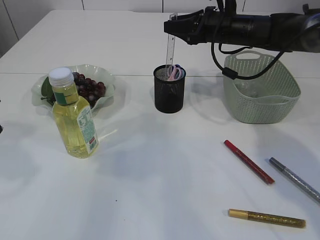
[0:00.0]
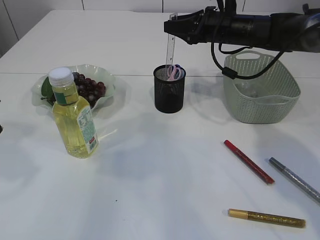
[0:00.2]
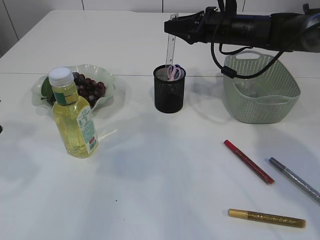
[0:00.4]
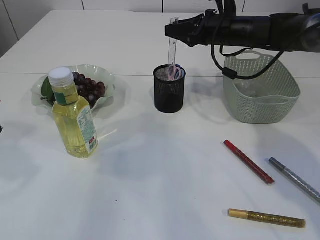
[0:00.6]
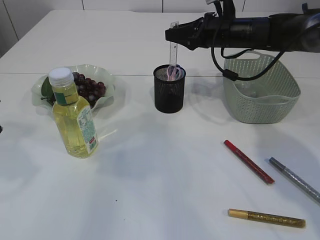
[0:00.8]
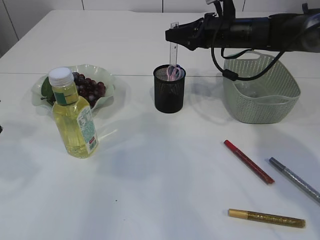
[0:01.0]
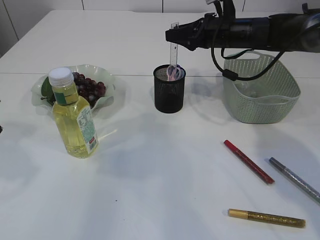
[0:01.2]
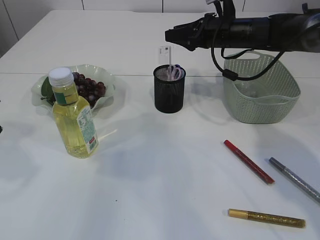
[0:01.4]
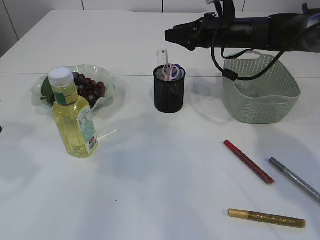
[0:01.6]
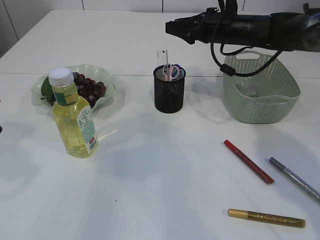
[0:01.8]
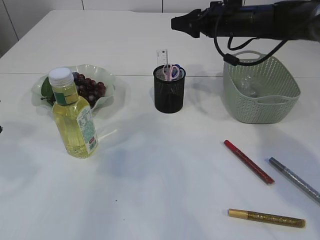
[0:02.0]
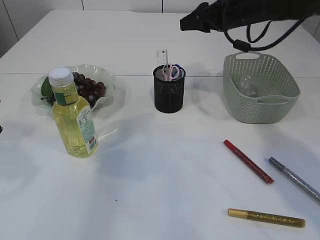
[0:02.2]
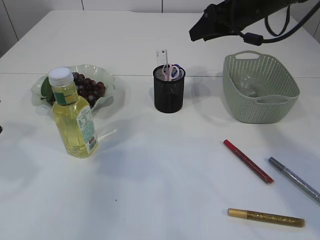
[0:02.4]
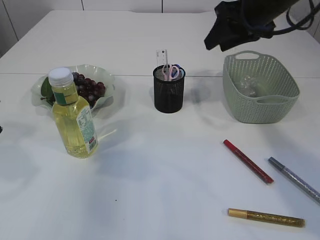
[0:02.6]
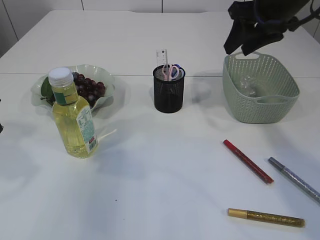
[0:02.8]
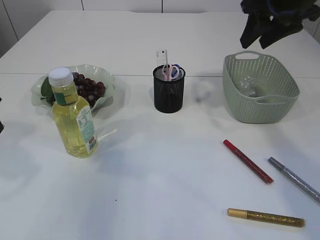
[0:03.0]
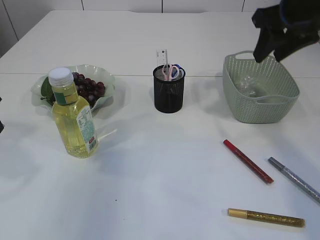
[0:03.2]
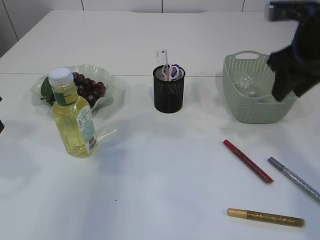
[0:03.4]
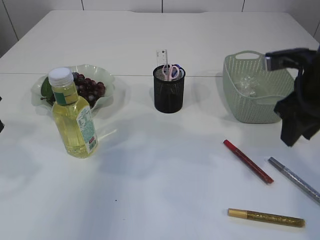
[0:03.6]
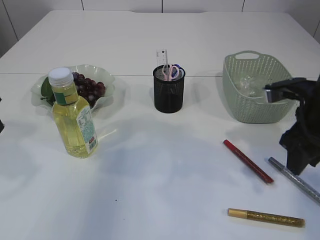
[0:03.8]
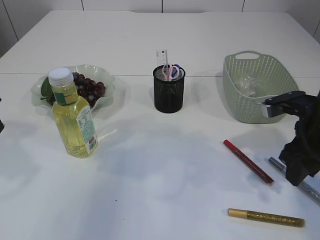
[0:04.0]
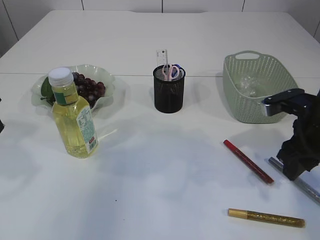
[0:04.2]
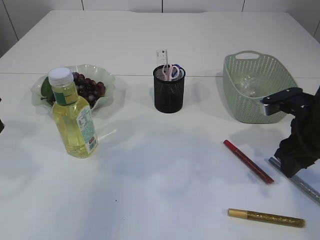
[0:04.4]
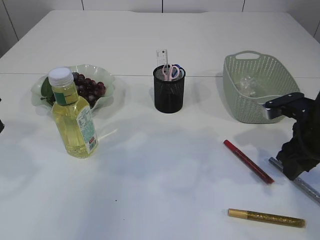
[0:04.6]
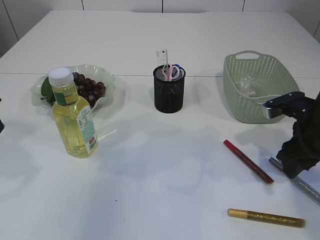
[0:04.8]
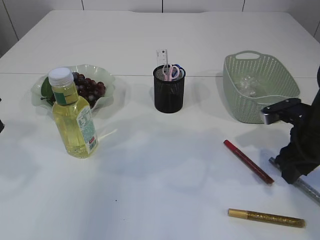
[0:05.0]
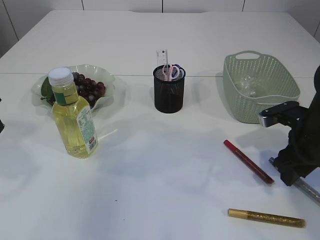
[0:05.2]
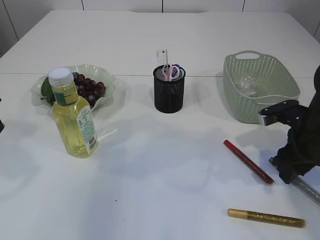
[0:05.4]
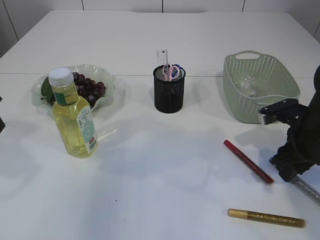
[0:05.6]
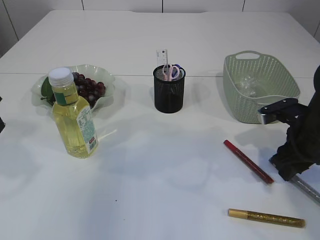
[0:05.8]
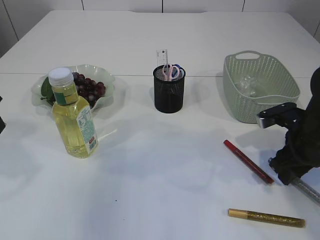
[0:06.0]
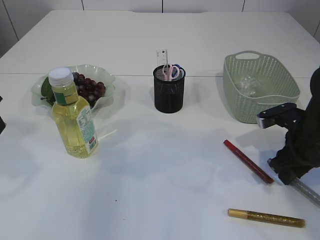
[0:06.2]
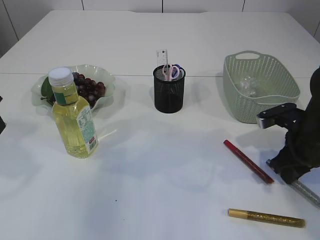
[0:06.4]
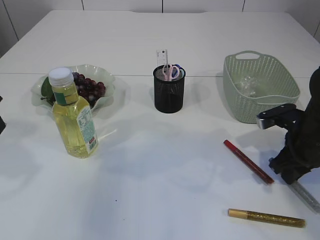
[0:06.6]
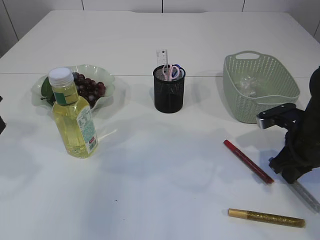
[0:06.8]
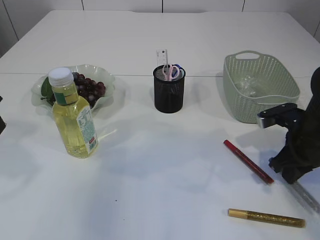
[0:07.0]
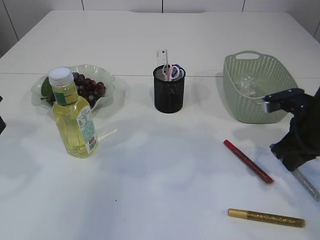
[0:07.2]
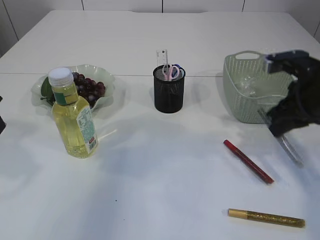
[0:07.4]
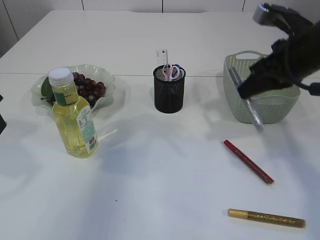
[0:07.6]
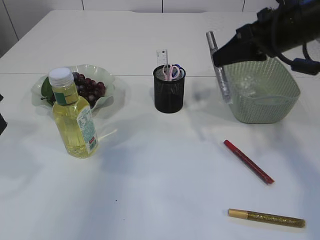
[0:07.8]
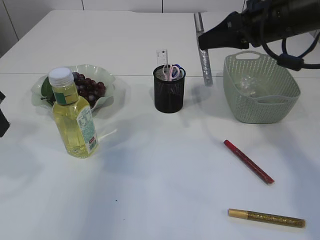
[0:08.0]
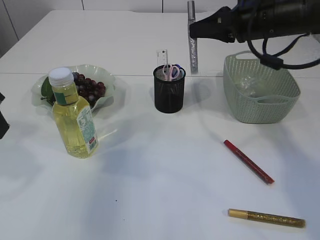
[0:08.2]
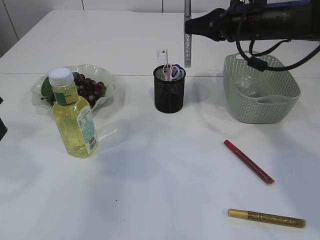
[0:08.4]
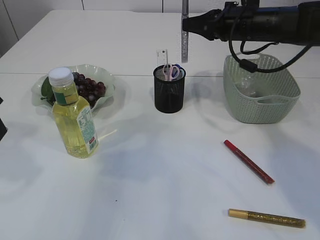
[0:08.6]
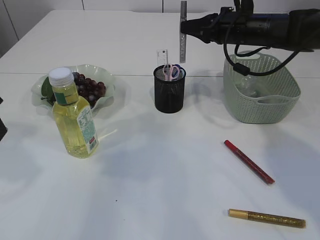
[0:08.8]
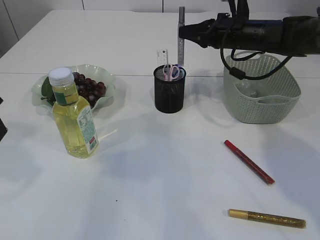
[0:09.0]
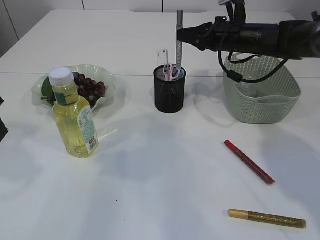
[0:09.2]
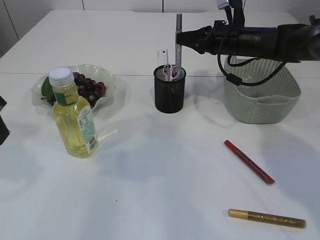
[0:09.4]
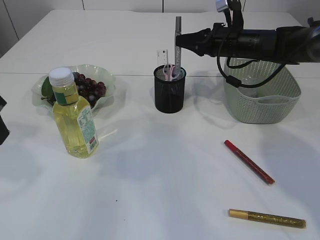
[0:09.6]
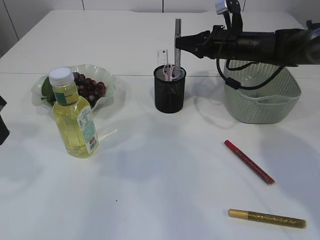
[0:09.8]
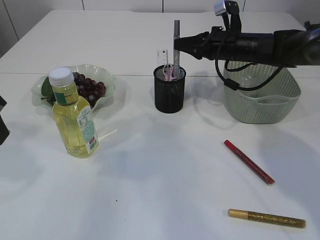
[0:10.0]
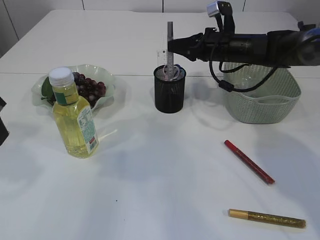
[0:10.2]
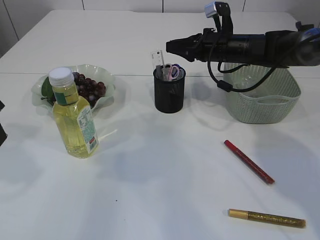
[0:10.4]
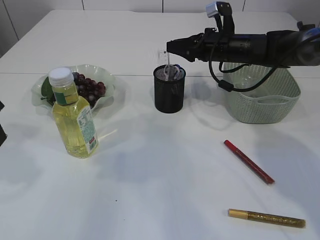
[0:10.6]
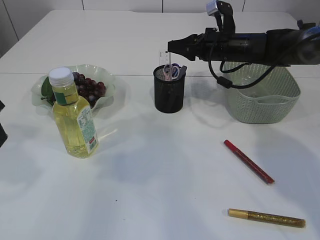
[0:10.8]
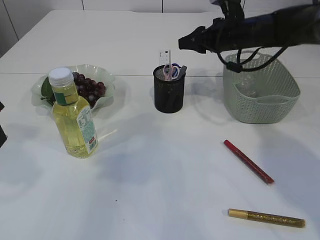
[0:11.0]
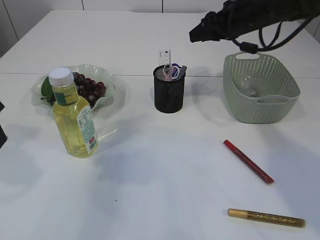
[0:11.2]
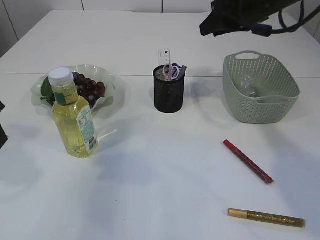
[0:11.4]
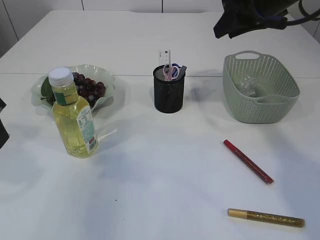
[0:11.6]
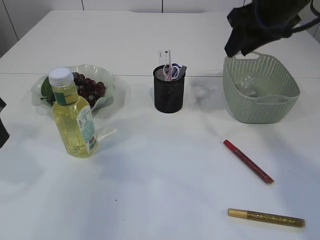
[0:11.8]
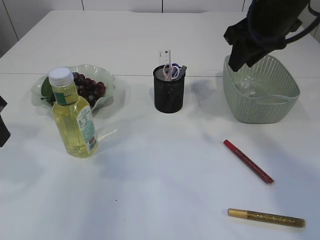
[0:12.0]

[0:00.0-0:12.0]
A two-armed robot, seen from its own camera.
Step, 0:00.0 to 0:02.0: Place the ruler into the pen holder.
Step, 0:02.2 to 0:07.2: pick up the silver glue.
Step, 0:07.4 to 0:11.0: place the silver glue into the pen holder.
0:00.0 to 0:01.6: There are only small adjustments of the grippers.
0:01.6 to 0:03.0: The right gripper moves upward, backward and to the right, some 15 cm.
0:03.0 to 0:04.4: The right gripper shifts some 20 cm downward and backward.
0:04.4 to 0:06.0: The grippers make only small movements.
0:06.0 to 0:07.6: The right gripper heads upward, covering about 15 cm, and closes up.
0:07.6 to 0:09.0: The right gripper is displaced forward by about 15 cm.
0:09.0 to 0:10.4: The grippers make only small movements.
0:10.4 to 0:12.0: The right gripper heads upward and backward, covering roughly 15 cm.

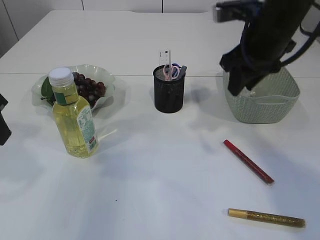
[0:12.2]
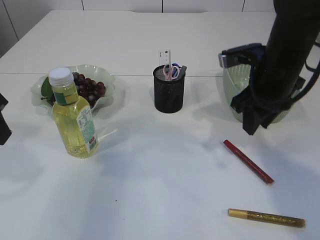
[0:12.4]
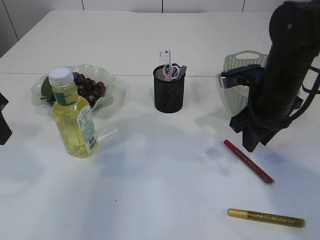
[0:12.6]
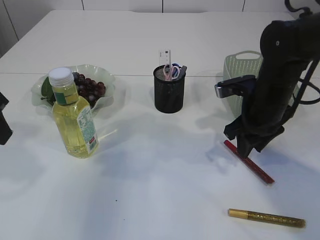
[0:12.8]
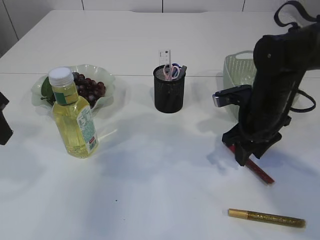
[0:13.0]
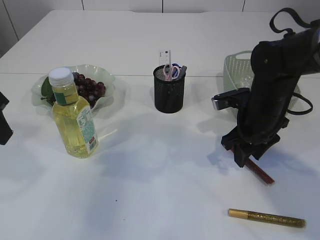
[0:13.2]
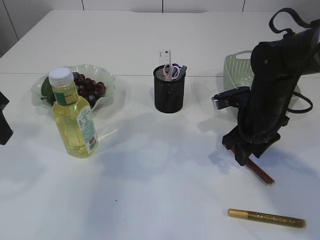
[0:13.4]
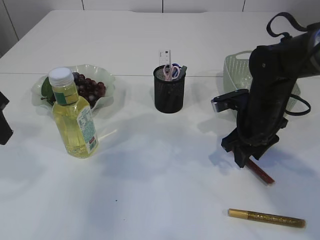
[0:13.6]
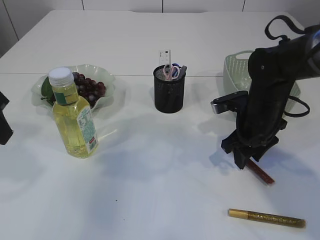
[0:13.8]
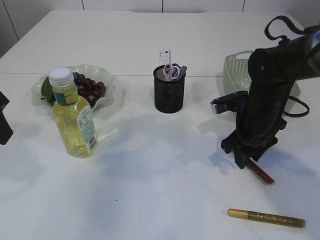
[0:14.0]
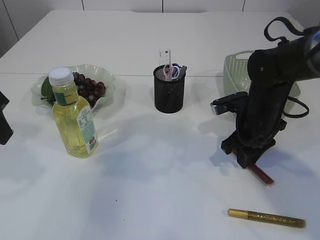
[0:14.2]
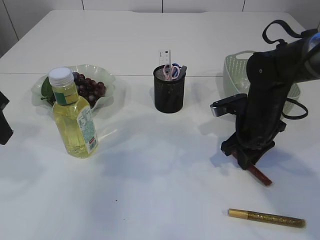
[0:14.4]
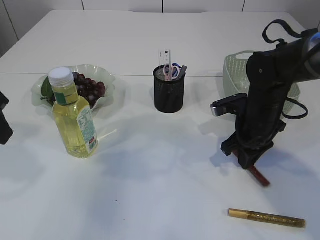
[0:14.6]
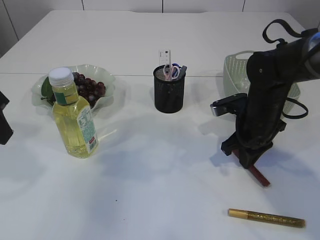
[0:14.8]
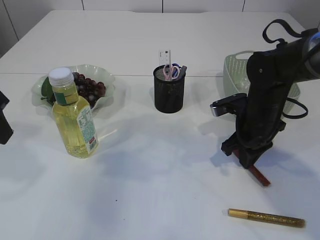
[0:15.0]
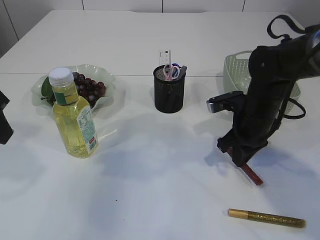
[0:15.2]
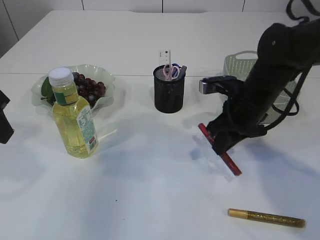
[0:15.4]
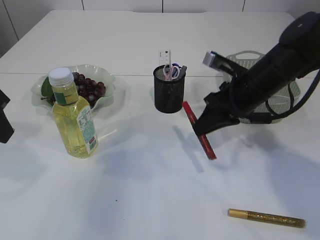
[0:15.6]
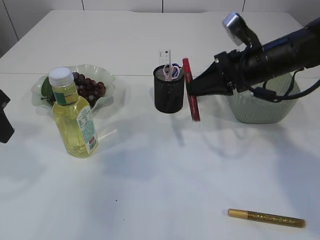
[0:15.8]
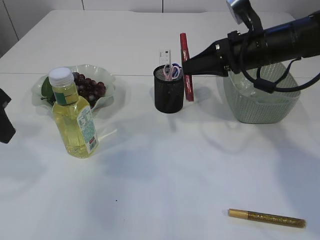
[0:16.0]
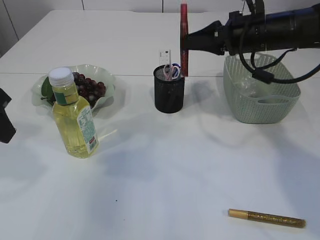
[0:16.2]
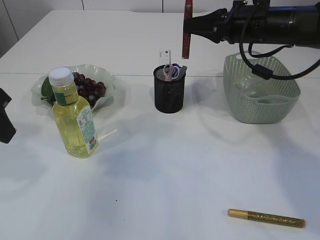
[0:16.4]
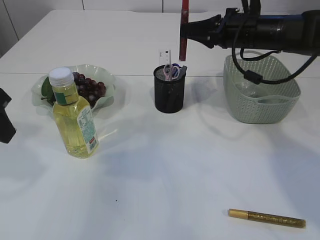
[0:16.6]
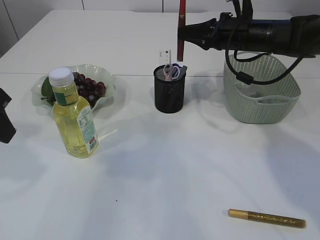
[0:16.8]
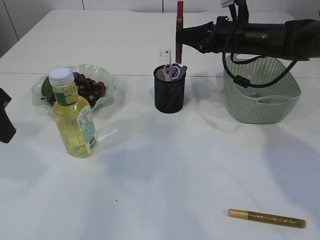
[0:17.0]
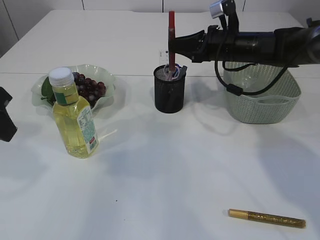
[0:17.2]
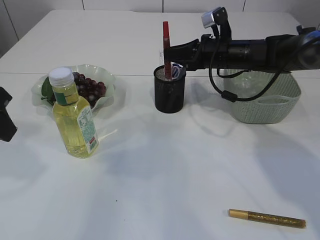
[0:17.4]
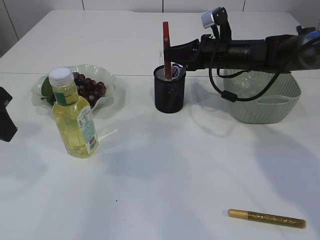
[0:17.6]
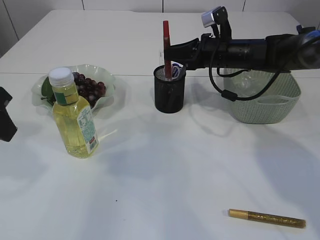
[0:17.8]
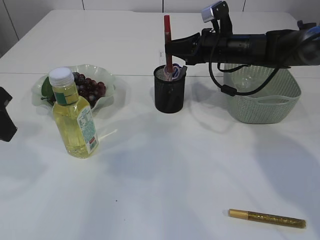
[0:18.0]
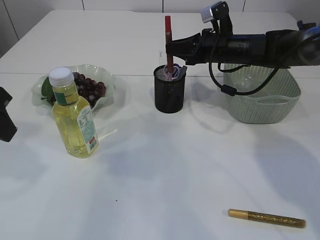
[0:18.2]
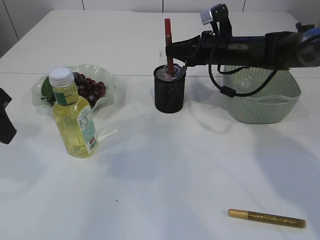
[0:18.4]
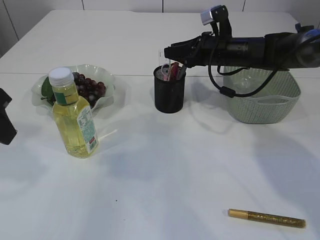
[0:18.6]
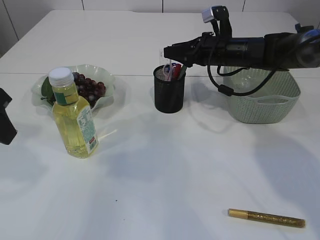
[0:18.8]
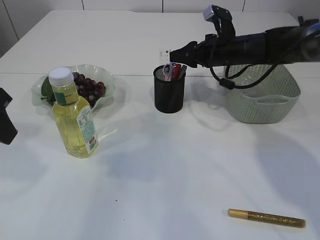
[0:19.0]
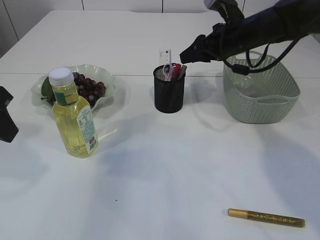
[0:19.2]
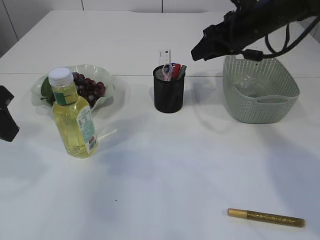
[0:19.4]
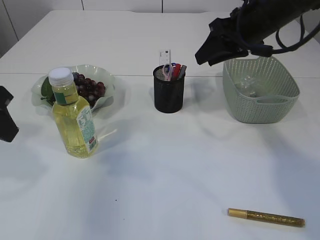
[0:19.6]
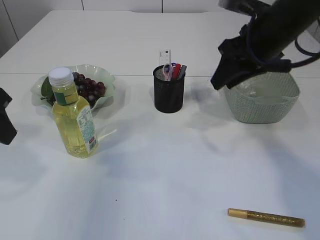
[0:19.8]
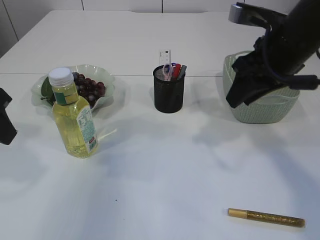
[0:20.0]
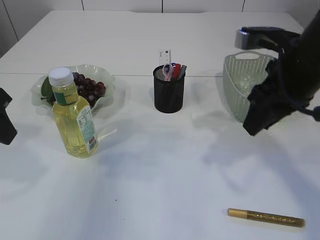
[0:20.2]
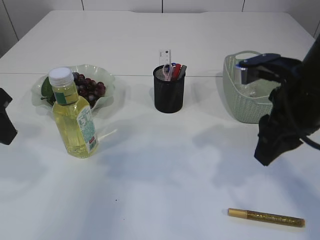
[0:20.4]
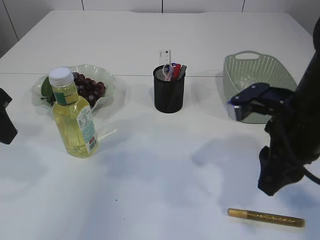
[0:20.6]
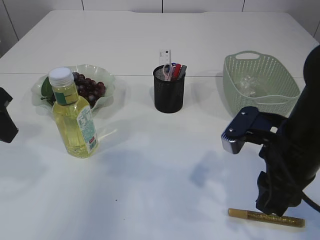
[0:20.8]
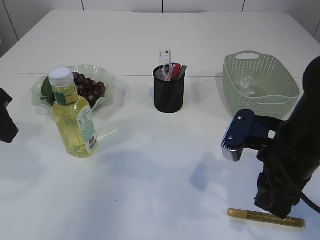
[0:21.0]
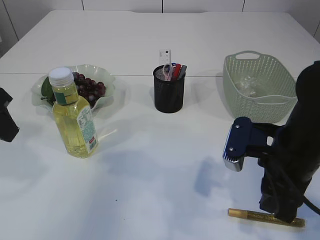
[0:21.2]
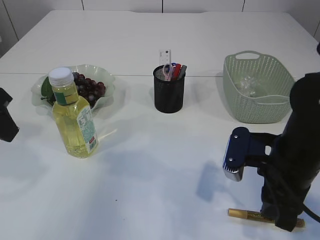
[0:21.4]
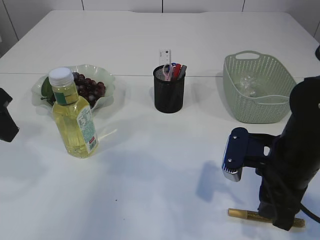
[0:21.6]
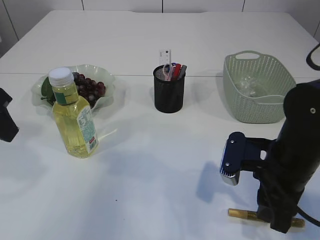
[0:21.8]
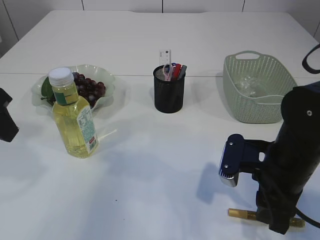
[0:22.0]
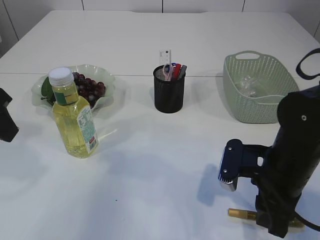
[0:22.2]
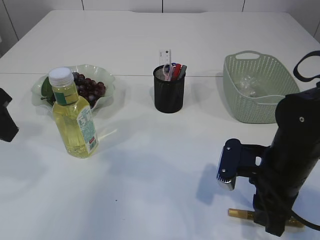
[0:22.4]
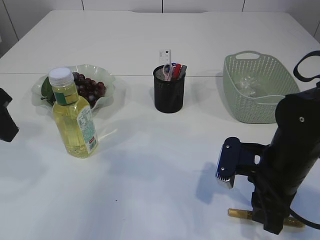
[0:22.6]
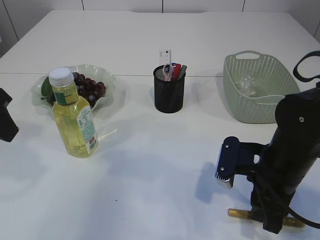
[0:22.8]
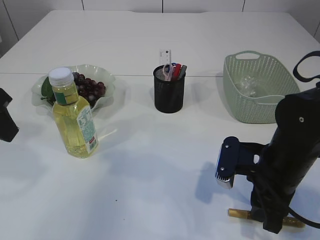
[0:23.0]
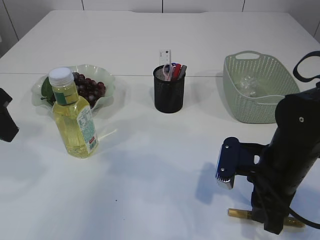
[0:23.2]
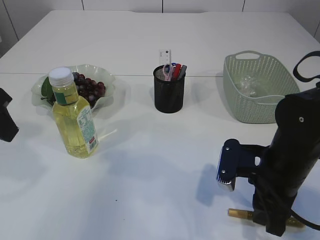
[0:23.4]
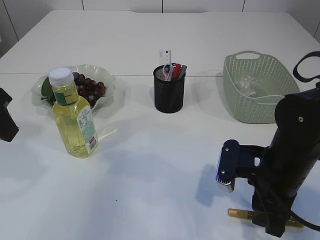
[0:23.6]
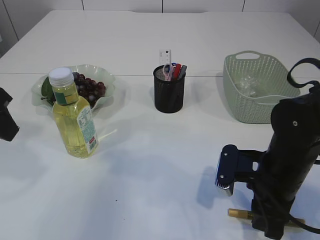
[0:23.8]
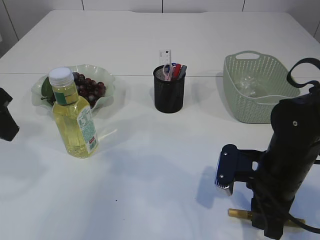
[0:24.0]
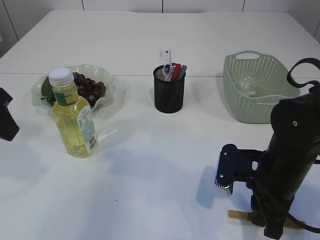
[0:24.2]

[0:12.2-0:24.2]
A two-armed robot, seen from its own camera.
Step, 0:12.2 to 0:15.4: pick up the red glue.
Step, 0:15.6 to 0:19.2: place the red glue into the pen holder.
0:12.2 to 0:13.8: The right gripper shifts about 15 cm downward.
0:13.8 to 0:15.2: The right gripper closes its fingers.
0:15.2 to 0:16.6: The right gripper moves upward and forward, about 15 cm.
0:16.6 to 0:18.2: The right gripper moves downward, some 5 cm.
0:18.2 to 0:19.8: The right gripper goes approximately 15 cm backward and upward, and opens its fingers.
0:19.8 to 0:21.2: The right gripper shifts about 15 cm backward and downward.
0:21.2 to 0:22.6: The right gripper goes some 5 cm downward.
0:22.6 to 0:24.2: Neither gripper changes place.
